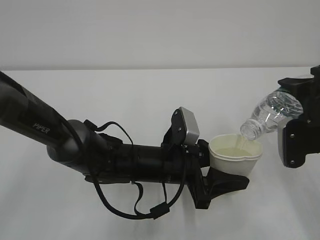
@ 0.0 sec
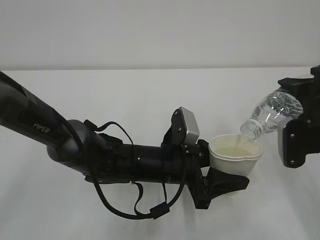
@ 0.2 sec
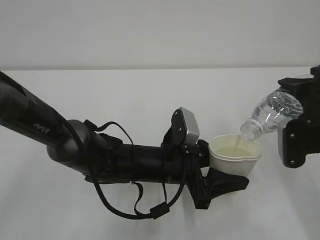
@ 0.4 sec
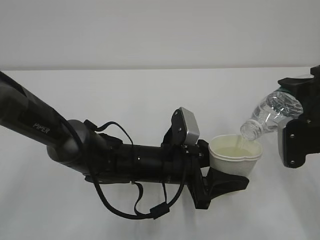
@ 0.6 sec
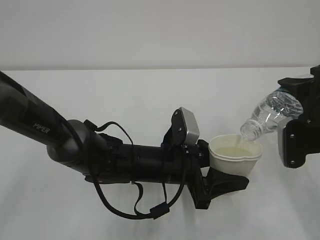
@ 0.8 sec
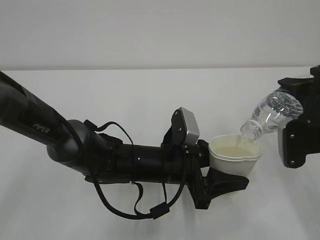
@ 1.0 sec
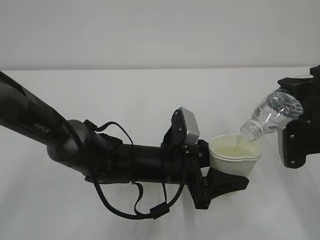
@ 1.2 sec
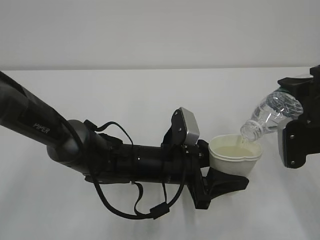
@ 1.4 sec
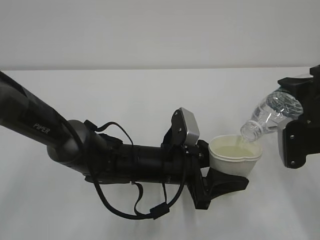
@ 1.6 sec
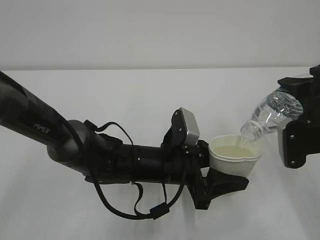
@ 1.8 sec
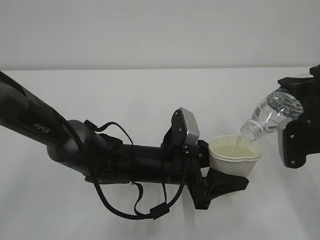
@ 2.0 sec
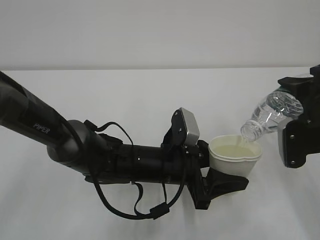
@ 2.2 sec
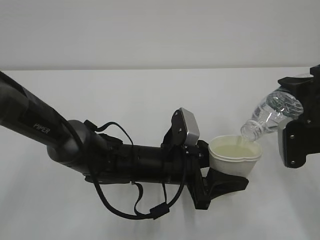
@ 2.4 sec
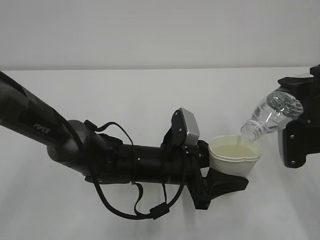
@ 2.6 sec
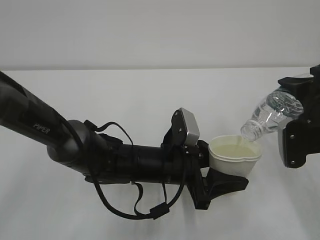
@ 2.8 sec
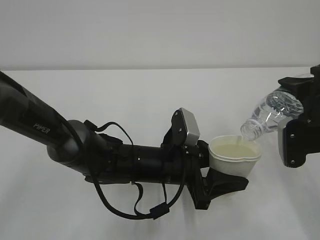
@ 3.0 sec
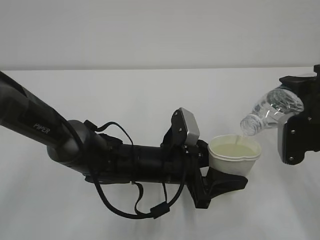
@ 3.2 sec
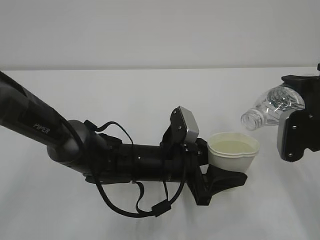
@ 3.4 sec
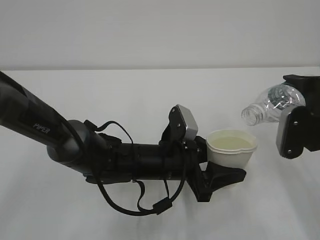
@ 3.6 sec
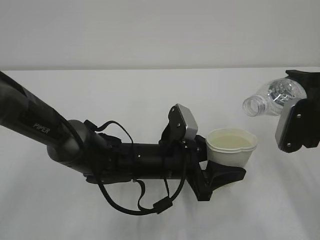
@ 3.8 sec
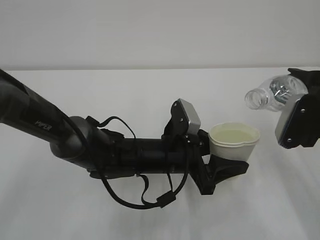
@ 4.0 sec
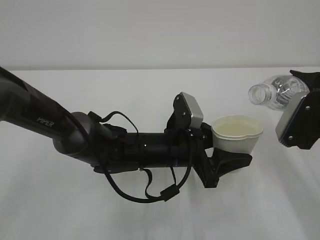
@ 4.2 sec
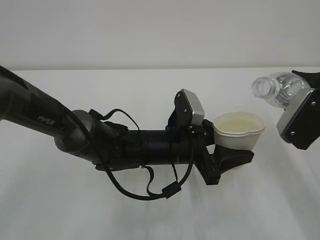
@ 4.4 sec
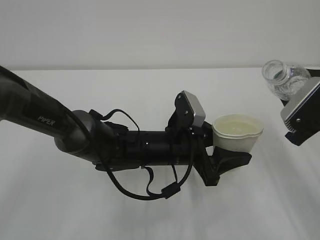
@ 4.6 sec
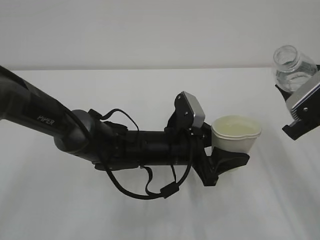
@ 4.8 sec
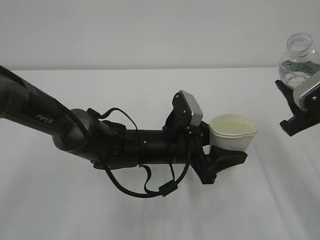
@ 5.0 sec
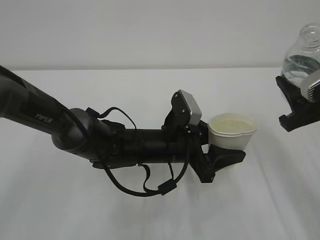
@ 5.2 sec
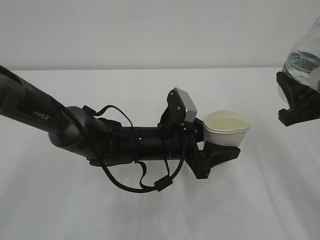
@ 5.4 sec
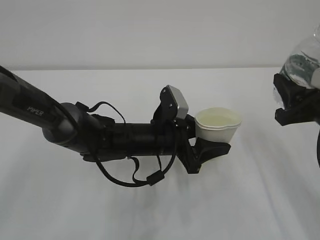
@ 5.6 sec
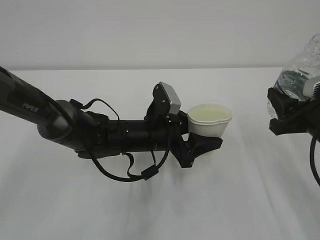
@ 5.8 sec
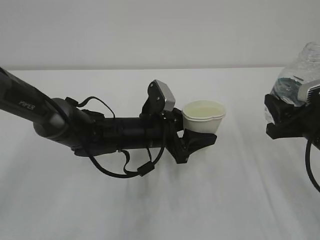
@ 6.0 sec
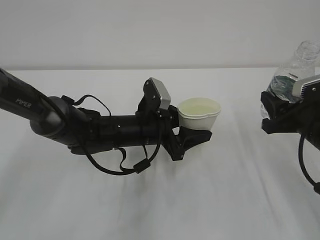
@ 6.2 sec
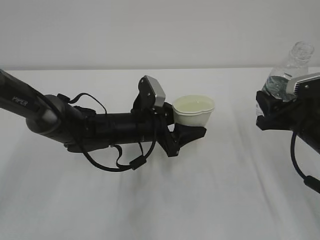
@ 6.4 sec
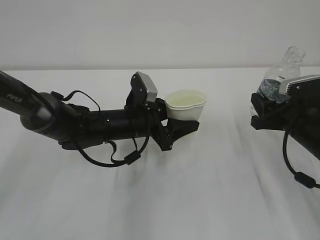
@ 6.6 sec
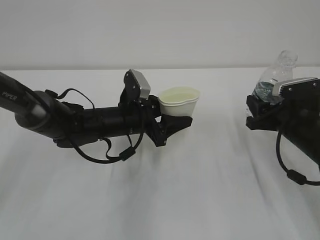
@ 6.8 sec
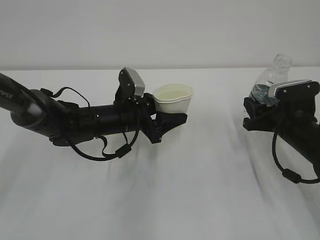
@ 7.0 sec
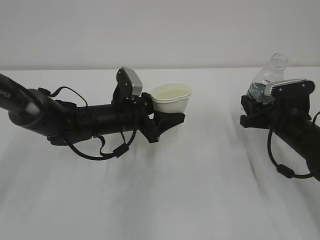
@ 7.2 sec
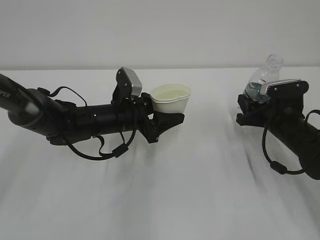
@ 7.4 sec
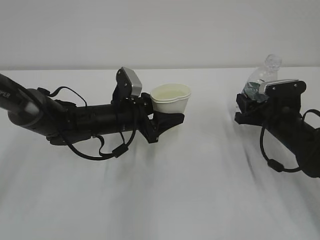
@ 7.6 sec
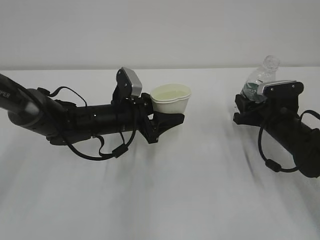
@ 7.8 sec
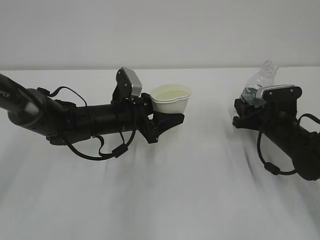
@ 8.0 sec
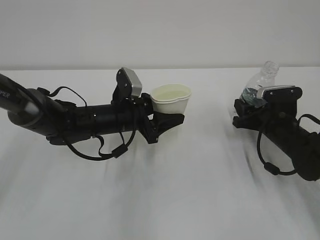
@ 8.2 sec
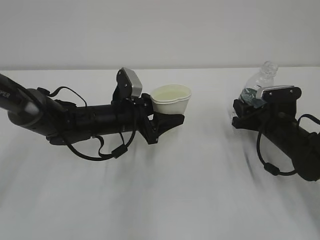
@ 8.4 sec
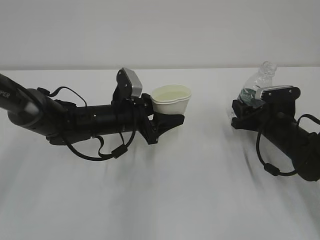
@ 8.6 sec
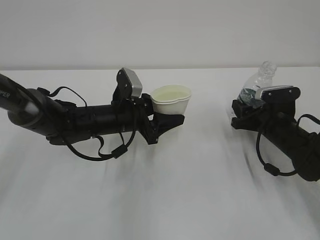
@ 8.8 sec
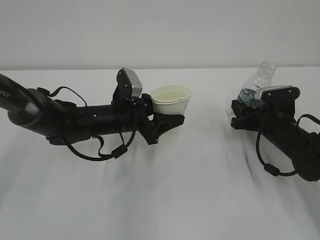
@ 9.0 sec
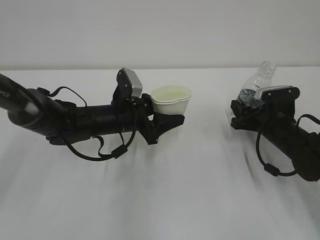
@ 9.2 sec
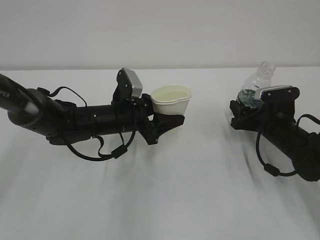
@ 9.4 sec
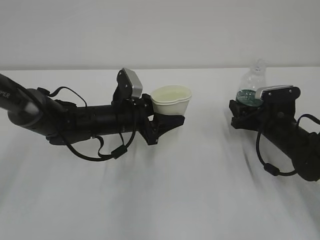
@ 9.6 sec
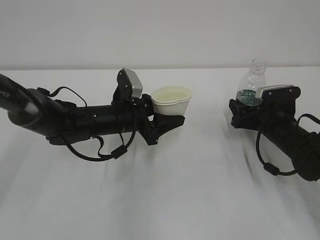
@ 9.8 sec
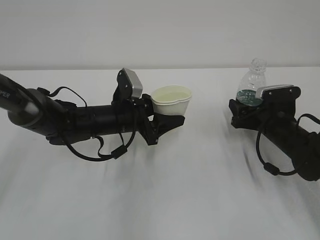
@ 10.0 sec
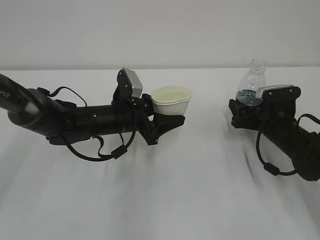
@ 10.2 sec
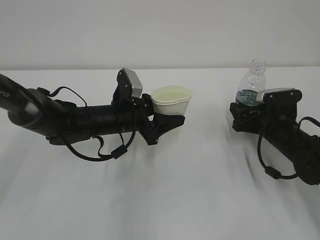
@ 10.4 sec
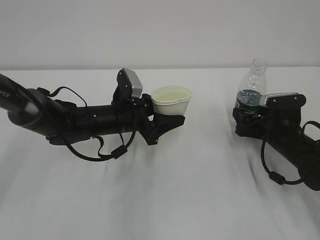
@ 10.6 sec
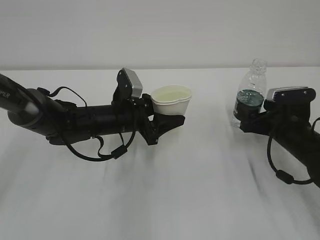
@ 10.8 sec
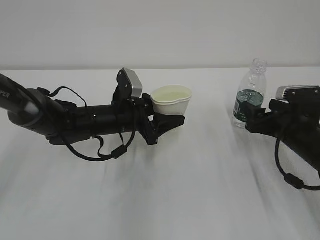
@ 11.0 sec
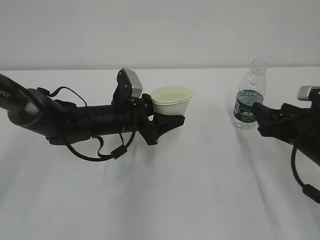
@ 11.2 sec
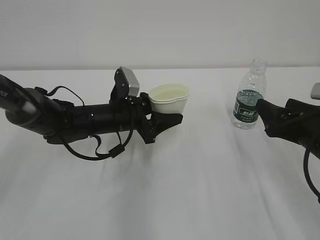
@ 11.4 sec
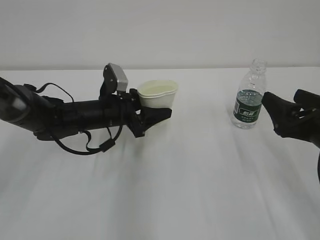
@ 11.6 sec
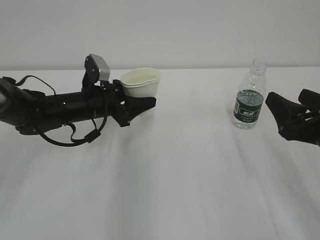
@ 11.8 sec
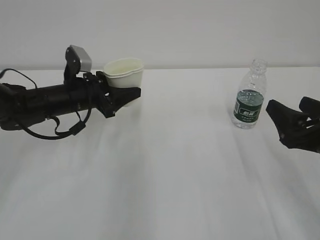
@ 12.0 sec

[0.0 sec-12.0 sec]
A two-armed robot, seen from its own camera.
0.0 sec to 3.0 sec: The two grippers keep their place.
4.4 sec to 6.0 sec: The left gripper changes place by some 5 cm.
6.0 sec to 7.6 sec: The right gripper goes roughly 15 cm forward and downward, while the left gripper moves to the left, roughly 5 cm.
7.6 sec to 9.0 sec: There are only small adjustments of the grippers.
9.0 sec to 10.4 sec: The right gripper opens.
10.4 sec to 12.0 sec: The left gripper moves to the left, approximately 10 cm. Meanwhile the right gripper is displaced backward and upward by approximately 20 cm.

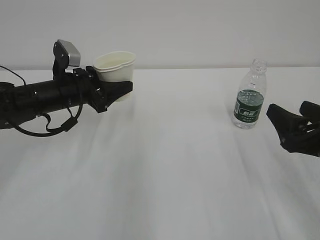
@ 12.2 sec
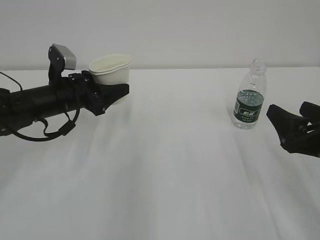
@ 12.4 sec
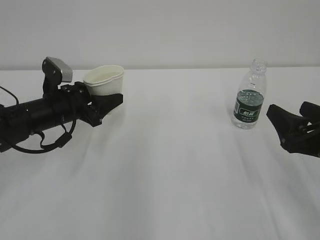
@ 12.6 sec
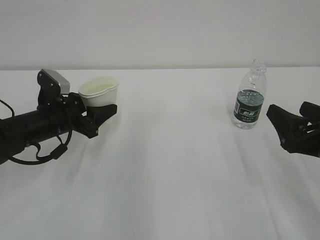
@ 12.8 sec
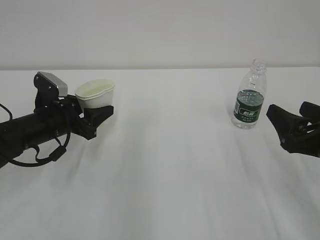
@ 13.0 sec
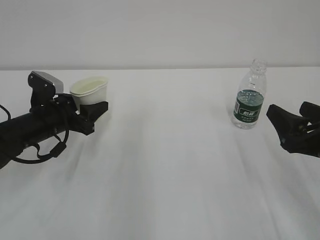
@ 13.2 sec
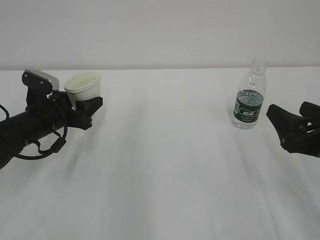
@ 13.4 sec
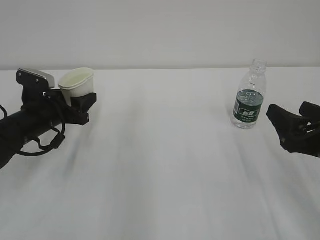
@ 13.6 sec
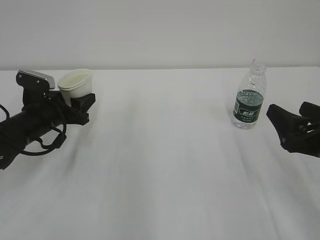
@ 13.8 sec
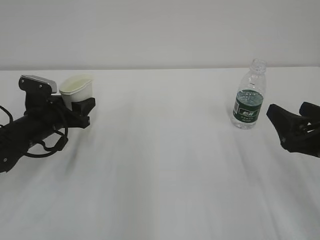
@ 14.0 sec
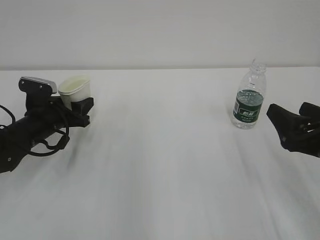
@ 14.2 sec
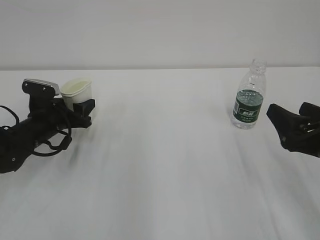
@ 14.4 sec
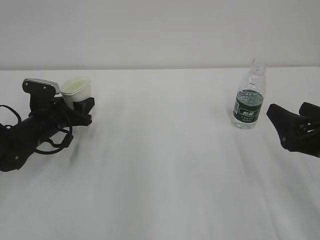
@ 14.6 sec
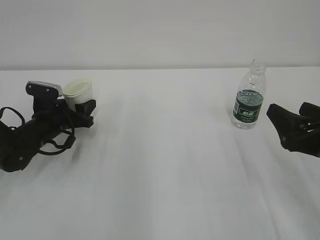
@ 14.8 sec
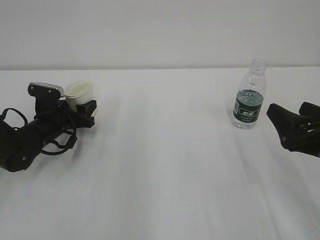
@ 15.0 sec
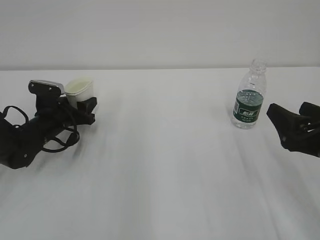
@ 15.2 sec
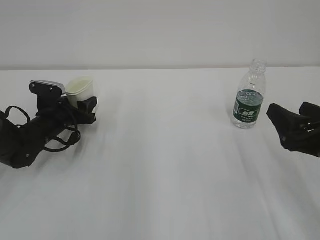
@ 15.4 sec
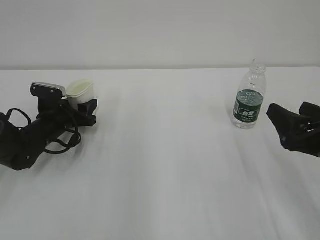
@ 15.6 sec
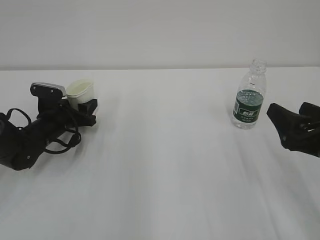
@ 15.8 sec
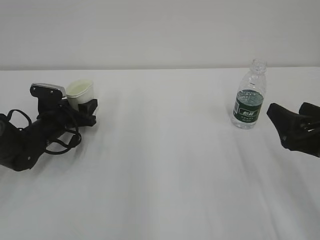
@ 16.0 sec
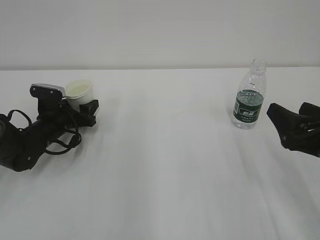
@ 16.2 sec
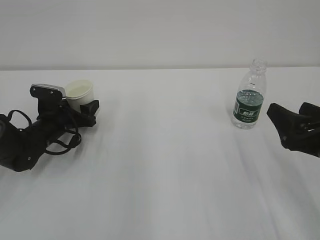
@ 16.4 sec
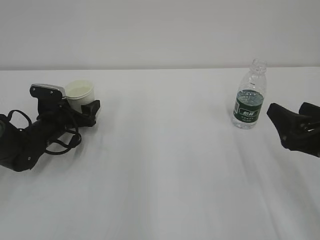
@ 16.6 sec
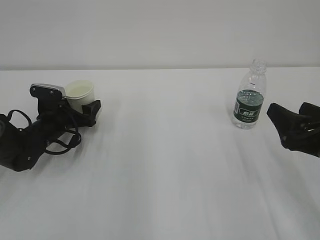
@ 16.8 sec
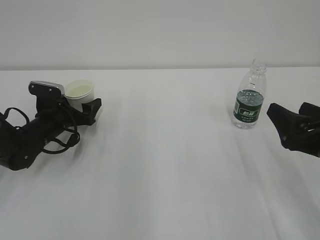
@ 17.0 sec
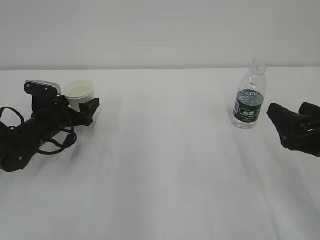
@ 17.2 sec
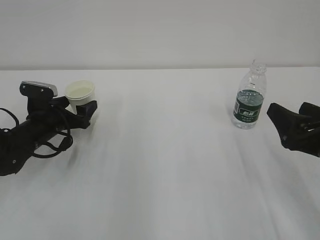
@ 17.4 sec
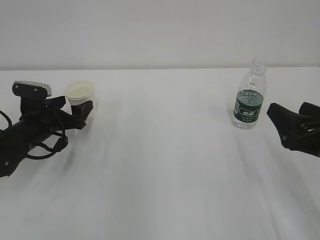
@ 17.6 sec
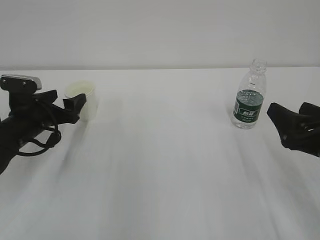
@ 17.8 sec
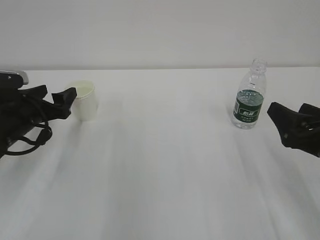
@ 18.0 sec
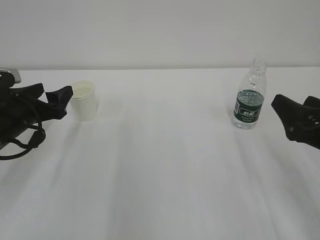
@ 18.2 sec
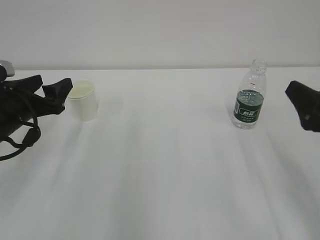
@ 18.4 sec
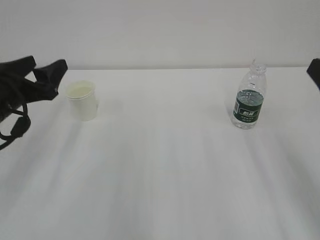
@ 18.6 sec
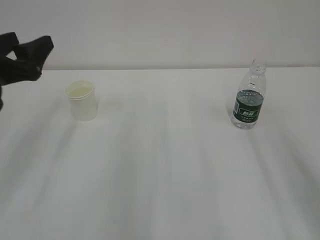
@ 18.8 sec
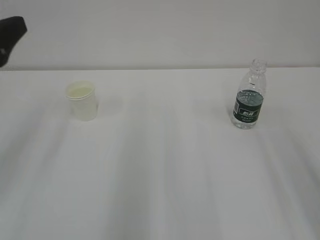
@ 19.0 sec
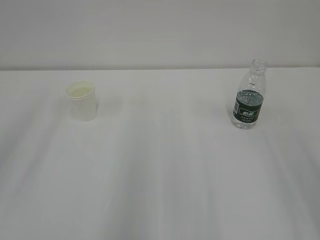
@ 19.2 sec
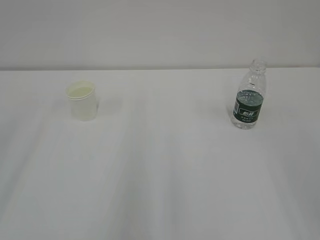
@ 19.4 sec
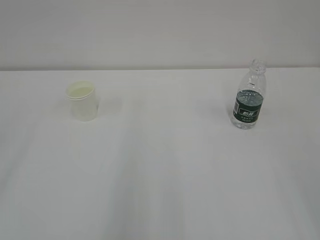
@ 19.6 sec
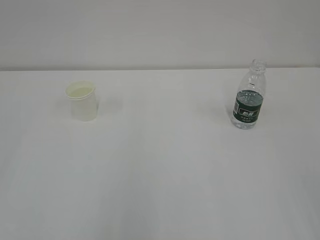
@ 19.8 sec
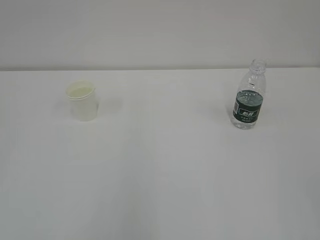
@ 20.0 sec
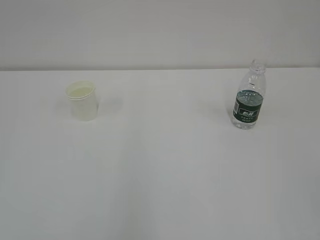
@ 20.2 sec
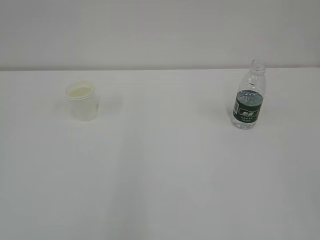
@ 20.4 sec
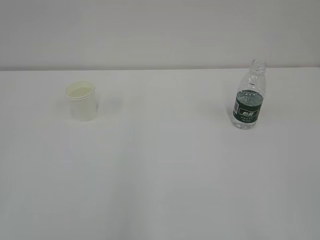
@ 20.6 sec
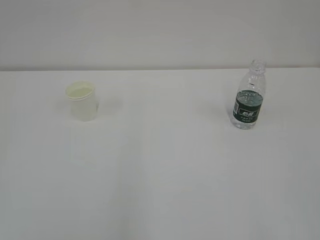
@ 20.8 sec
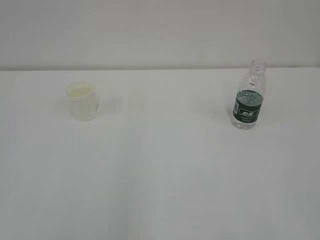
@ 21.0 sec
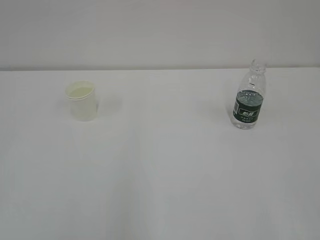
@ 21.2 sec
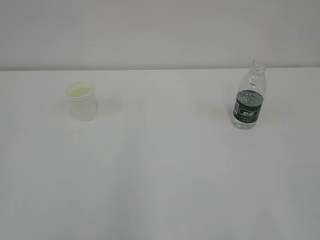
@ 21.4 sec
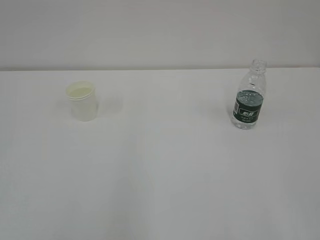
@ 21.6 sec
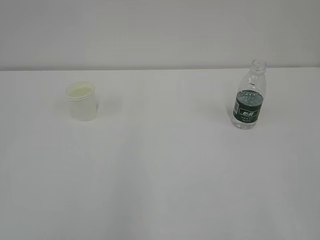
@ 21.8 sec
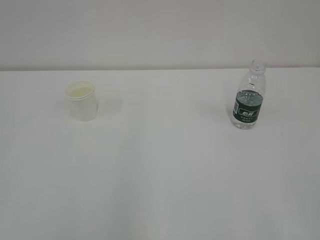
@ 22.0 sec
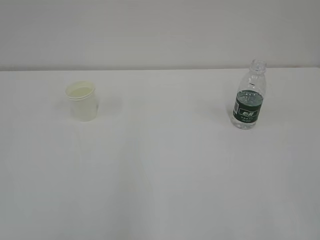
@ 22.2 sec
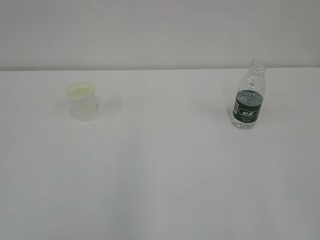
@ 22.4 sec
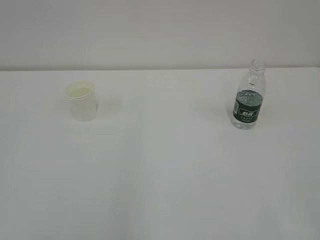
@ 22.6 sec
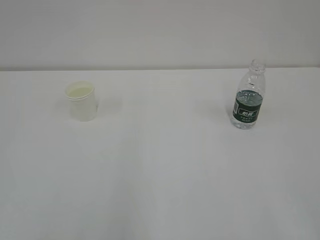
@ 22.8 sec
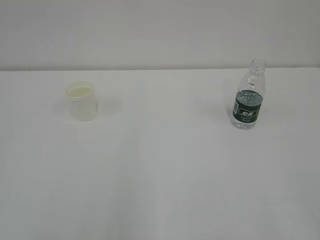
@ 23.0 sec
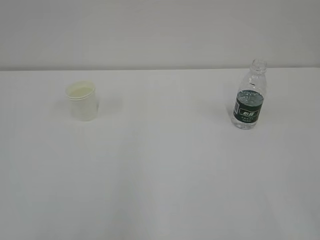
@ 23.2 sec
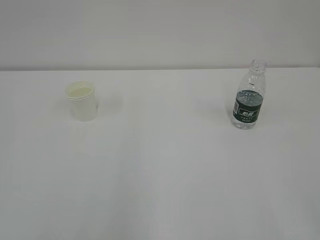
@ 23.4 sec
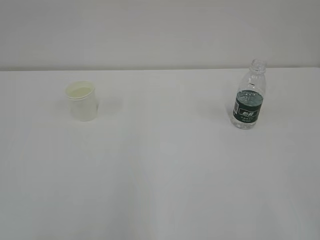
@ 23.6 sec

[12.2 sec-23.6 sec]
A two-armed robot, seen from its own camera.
12.2 sec to 13.6 sec: The left gripper ends up some 5 cm from where it was.
13.6 sec to 15.0 sec: The left gripper heads downward, covering roughly 5 cm.
15.0 sec to 16.4 sec: The left gripper opens.
16.4 sec to 17.8 sec: The left gripper shifts about 5 cm upward and backward, and opens.
17.8 sec to 19.4 sec: The right gripper travels upward and backward by some 25 cm; the left gripper goes approximately 35 cm upward and backward, and closes.
